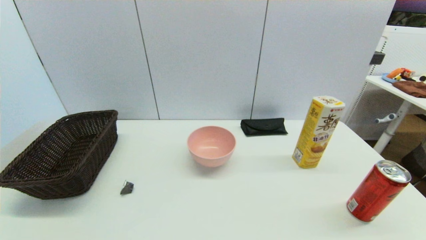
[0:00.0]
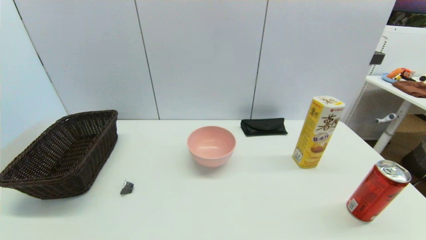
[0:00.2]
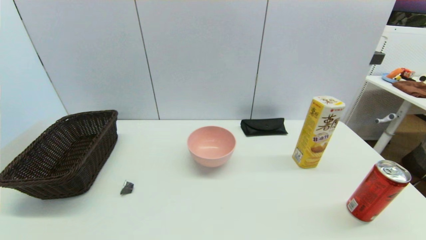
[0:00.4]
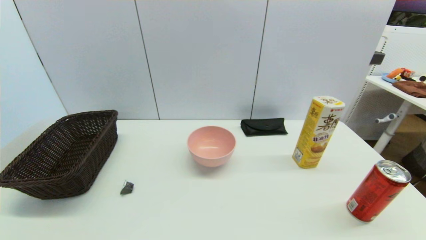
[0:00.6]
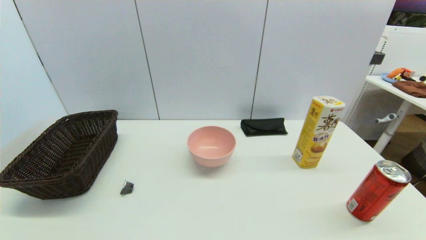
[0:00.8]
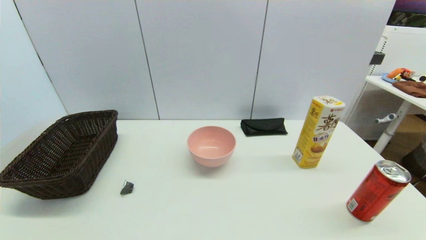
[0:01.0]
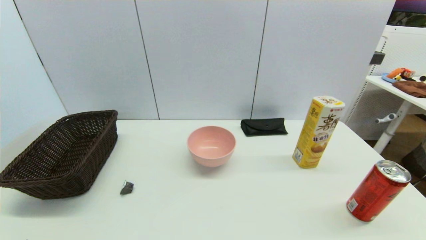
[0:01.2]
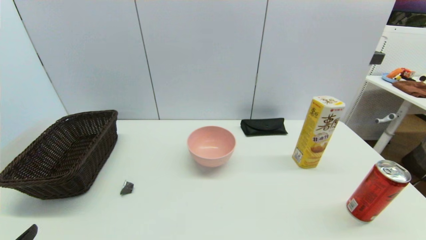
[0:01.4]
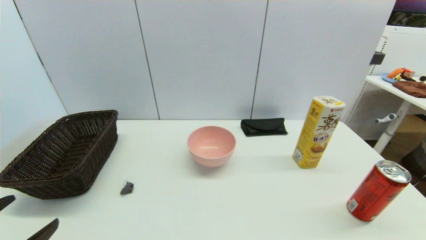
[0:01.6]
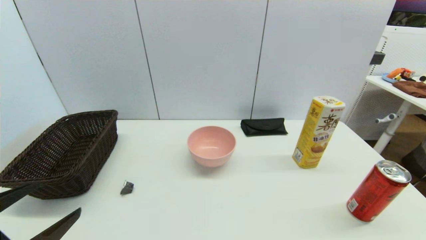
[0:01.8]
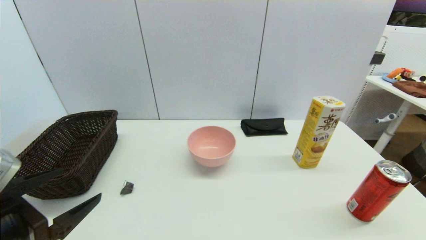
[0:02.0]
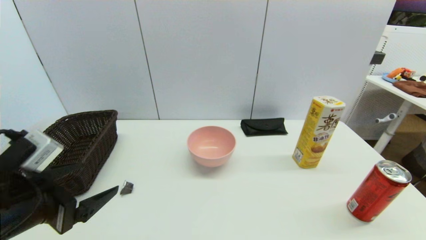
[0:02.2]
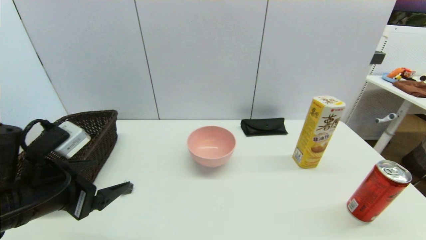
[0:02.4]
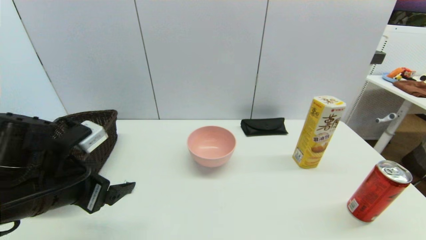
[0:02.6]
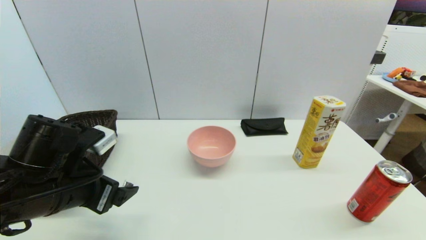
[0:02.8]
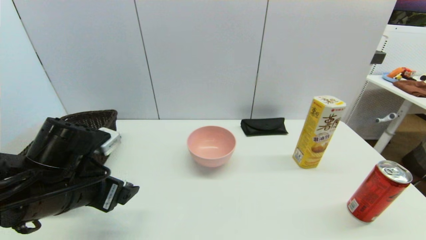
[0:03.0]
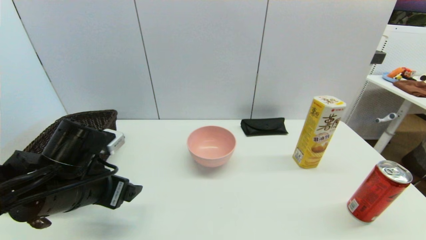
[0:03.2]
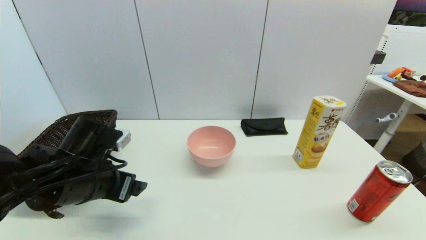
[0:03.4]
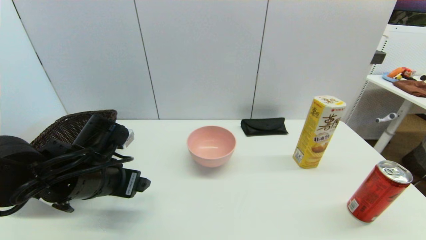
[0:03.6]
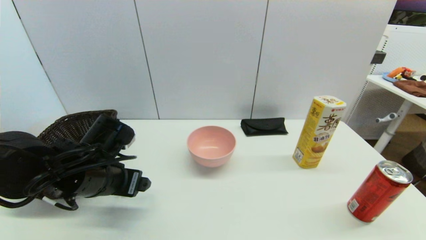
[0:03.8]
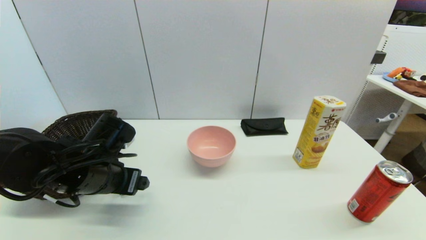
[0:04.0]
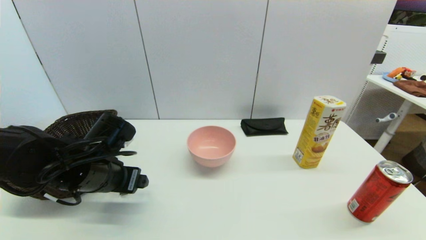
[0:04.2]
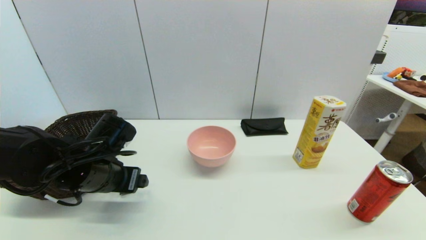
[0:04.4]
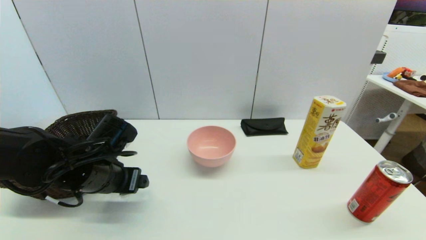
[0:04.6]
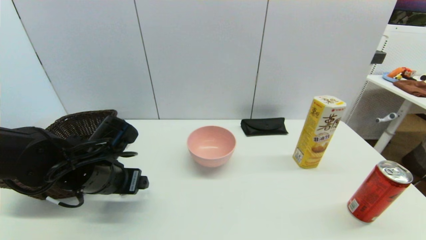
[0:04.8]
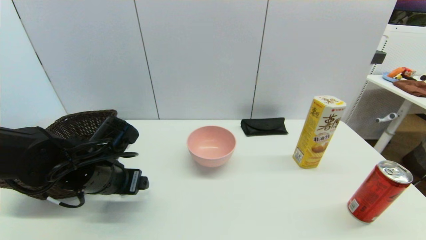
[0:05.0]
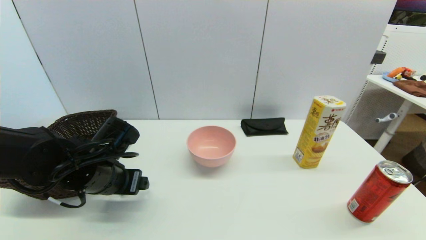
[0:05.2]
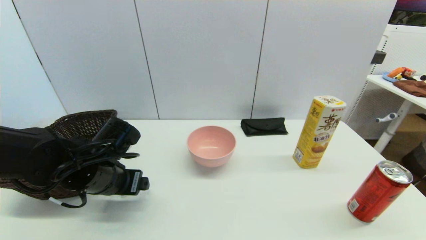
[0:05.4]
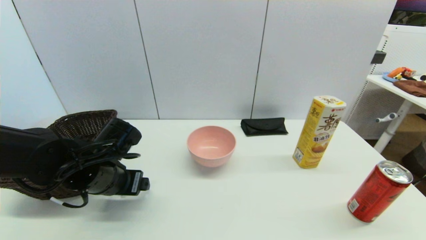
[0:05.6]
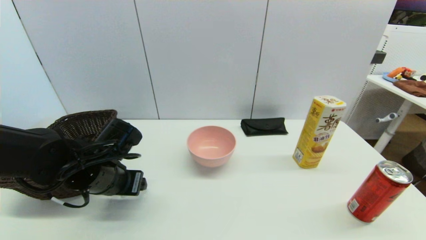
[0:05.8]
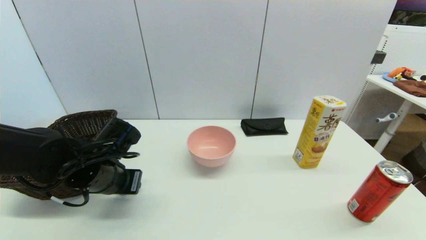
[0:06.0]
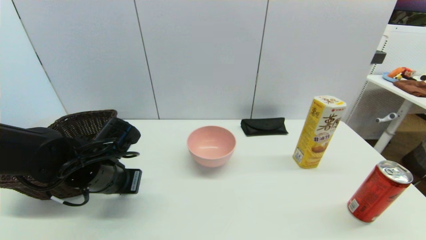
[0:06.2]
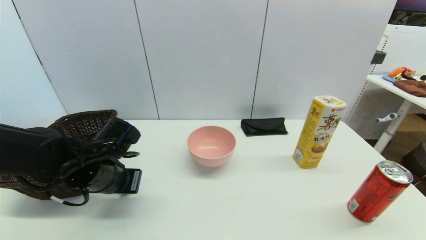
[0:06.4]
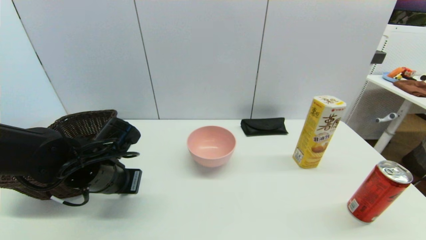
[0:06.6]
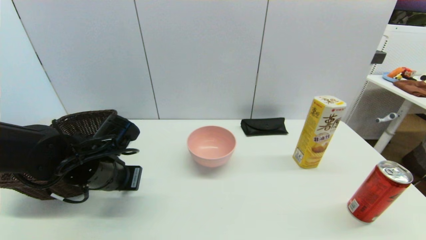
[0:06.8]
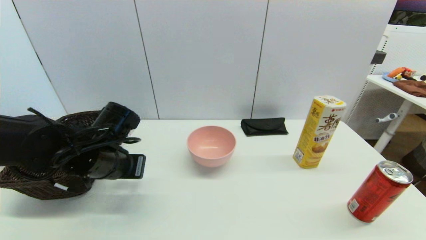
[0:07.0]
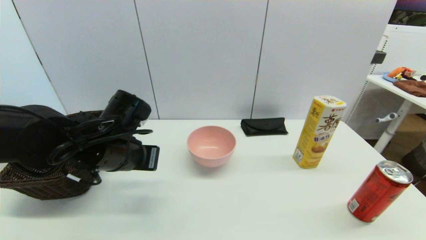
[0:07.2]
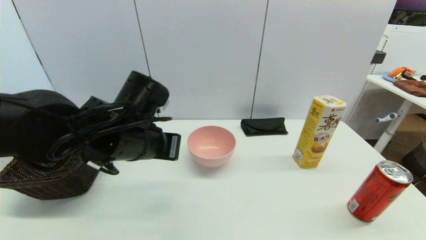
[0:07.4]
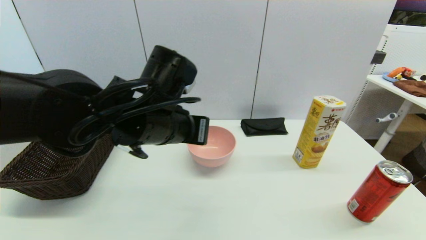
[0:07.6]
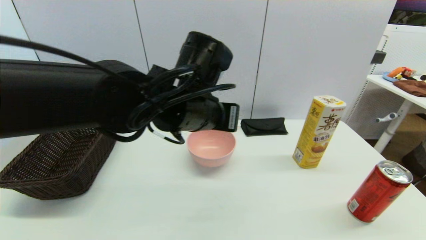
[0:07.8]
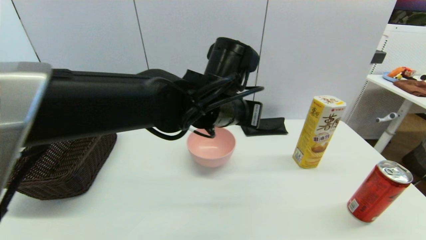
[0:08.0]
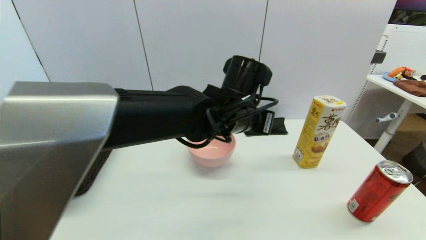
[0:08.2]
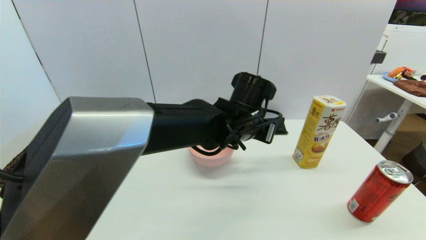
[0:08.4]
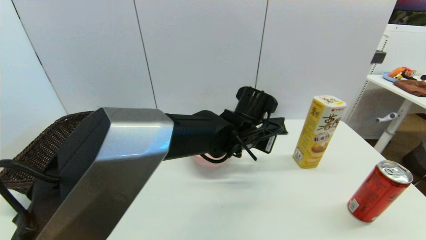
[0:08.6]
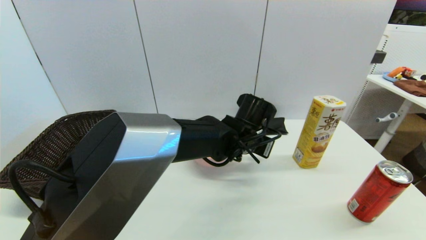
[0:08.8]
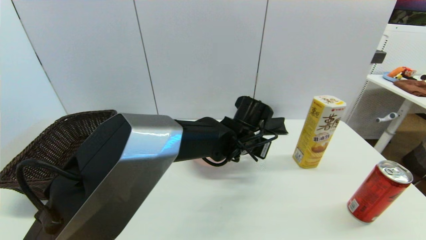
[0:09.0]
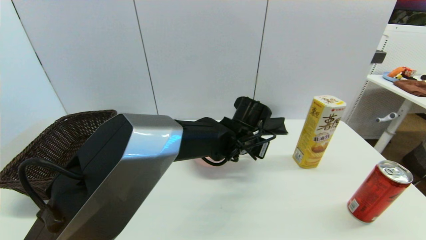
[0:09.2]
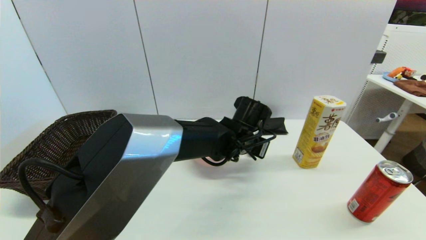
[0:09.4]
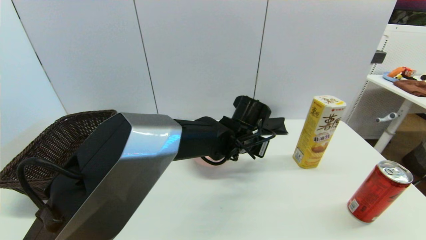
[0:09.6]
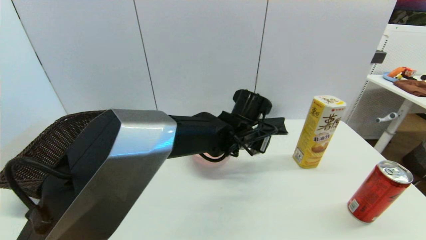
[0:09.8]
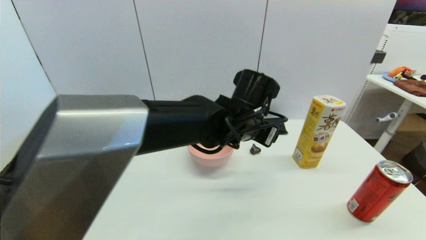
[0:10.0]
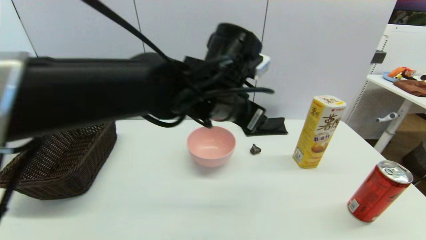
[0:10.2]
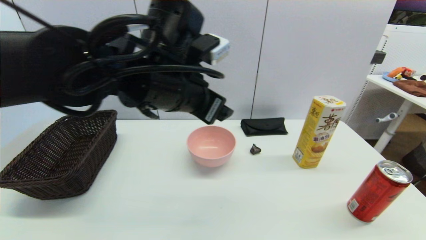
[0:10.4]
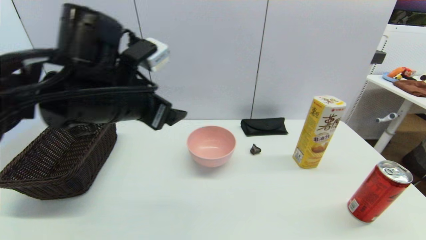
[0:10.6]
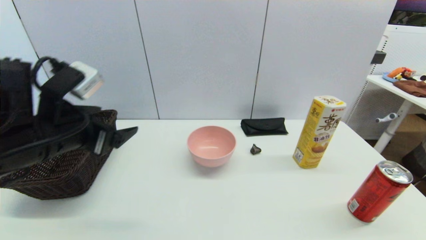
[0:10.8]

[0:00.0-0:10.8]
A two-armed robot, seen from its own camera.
Step, 0:01.4 to 0:06.4: Grasp the coffee capsule with left gripper.
Step, 0:06.8 to 0:09.6: Place the coffee capsule on the table with left gripper.
0:01.6 to 0:03.0: The left gripper shifts roughly 15 cm forward and to the right.
0:03.0 to 0:04.6: The left gripper goes roughly 5 cm forward.
0:04.6 to 0:06.2: The left gripper closes.
0:06.2 to 0:07.8: The left gripper moves to the right and upward, approximately 20 cm.
0:07.8 to 0:09.2: The left gripper is displaced downward, to the right and forward by some 15 cm.
0:09.2 to 0:10.8: The left gripper shifts roughly 35 cm to the left and backward, and opens.

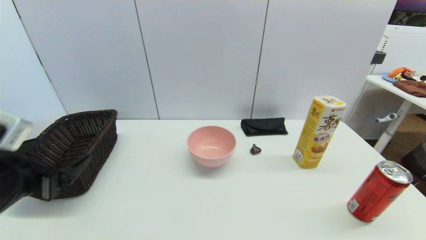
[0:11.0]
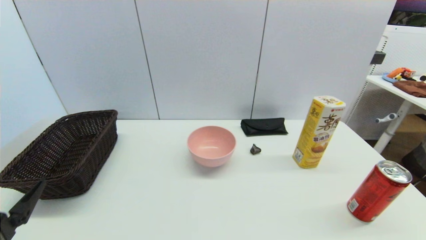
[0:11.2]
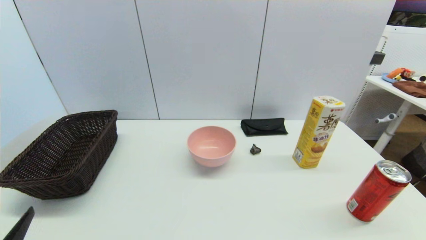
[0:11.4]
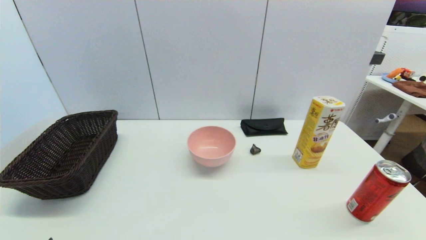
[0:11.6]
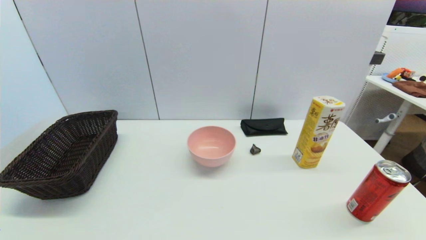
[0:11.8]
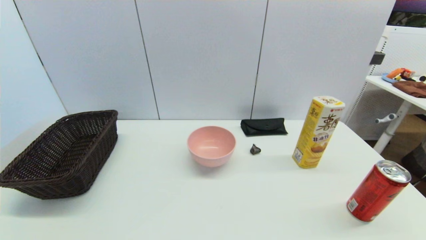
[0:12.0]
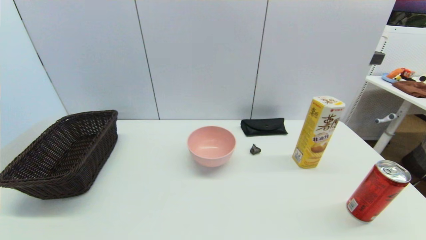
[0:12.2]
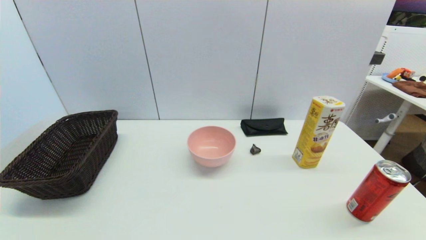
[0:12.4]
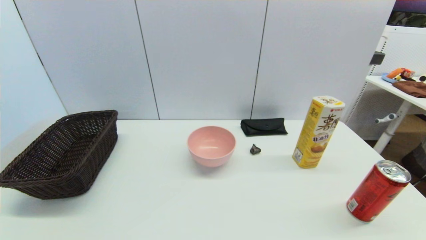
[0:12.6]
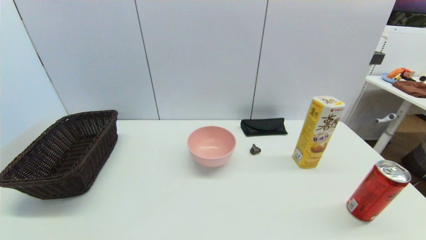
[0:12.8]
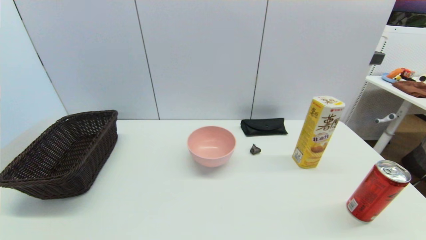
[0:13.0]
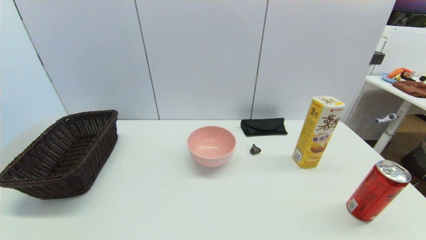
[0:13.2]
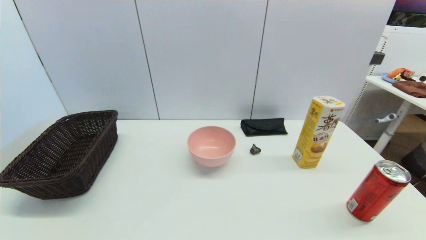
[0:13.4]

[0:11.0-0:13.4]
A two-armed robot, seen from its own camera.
0:11.0 to 0:12.2: The left gripper heads backward and downward, covering some 20 cm.
0:12.2 to 0:13.4: Both grippers stay put.
